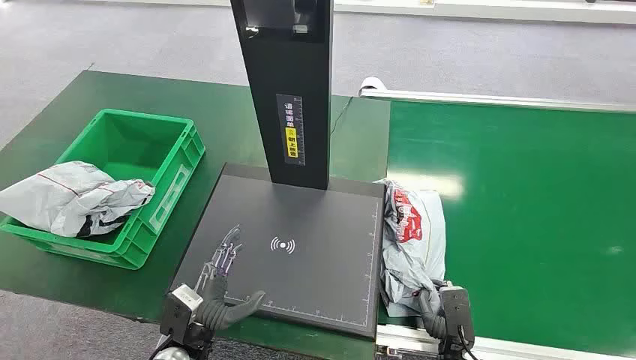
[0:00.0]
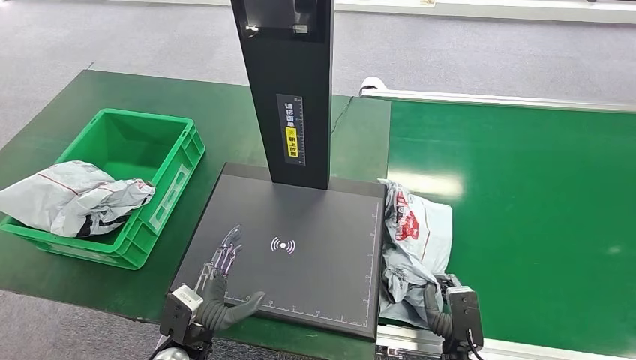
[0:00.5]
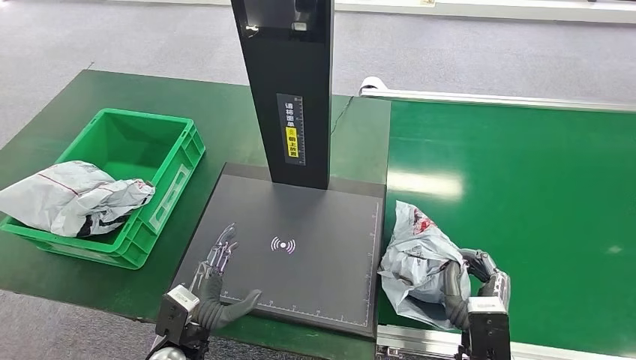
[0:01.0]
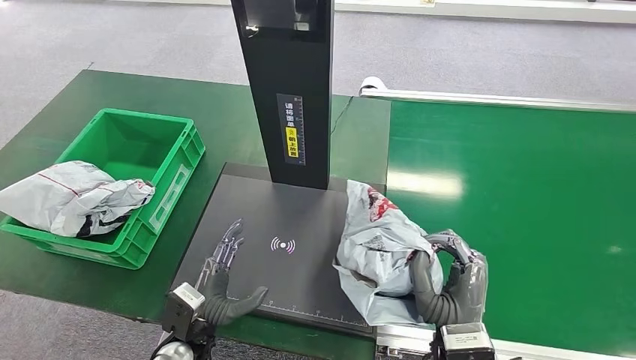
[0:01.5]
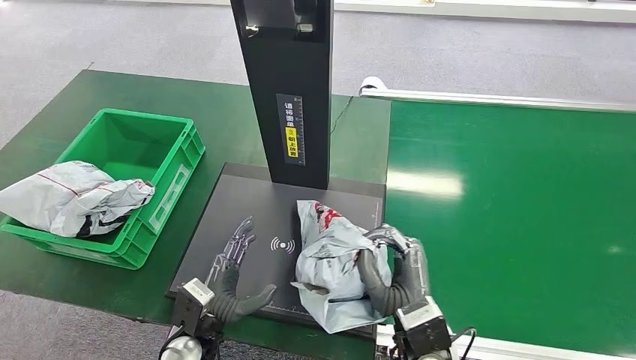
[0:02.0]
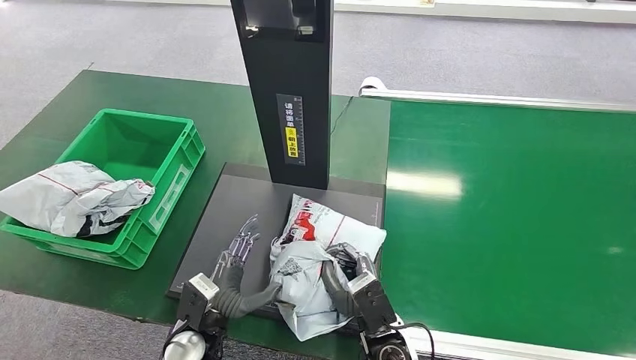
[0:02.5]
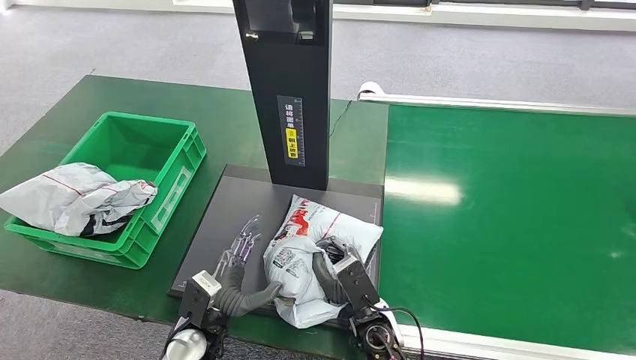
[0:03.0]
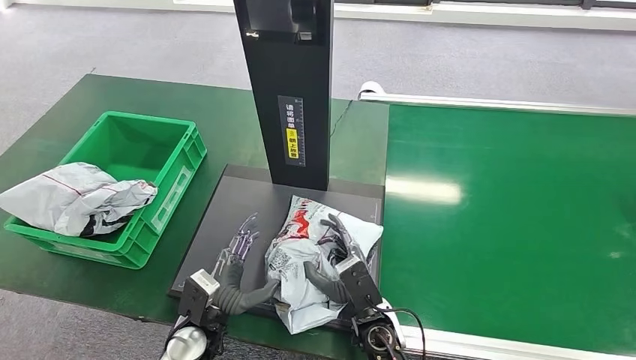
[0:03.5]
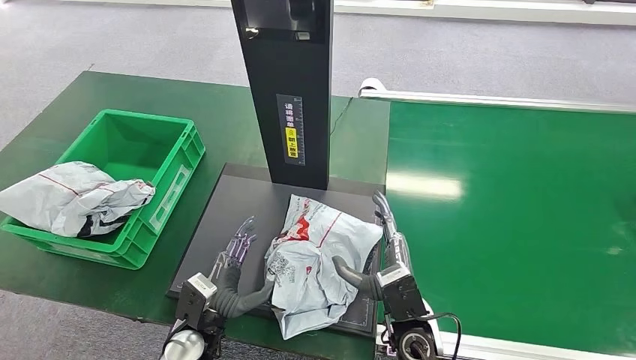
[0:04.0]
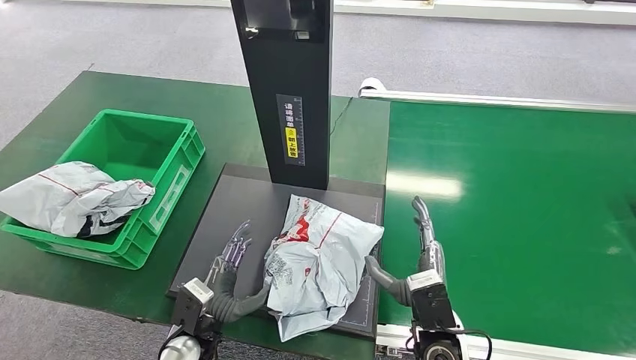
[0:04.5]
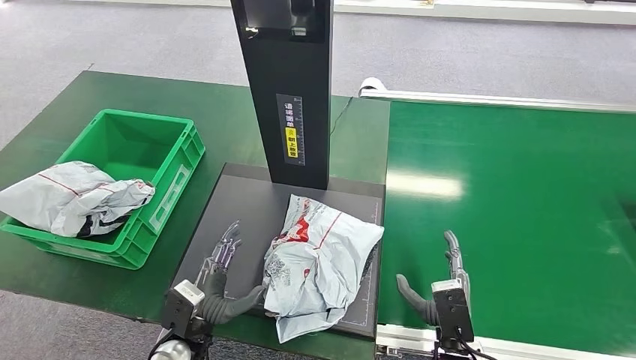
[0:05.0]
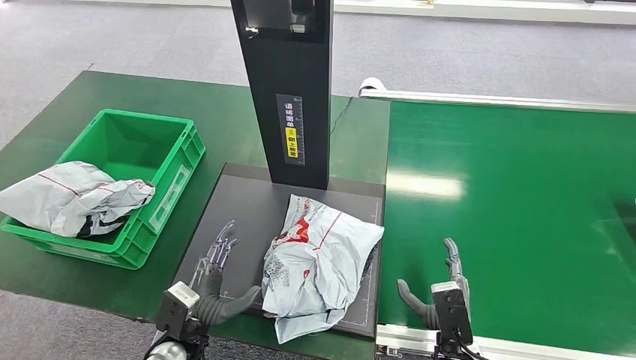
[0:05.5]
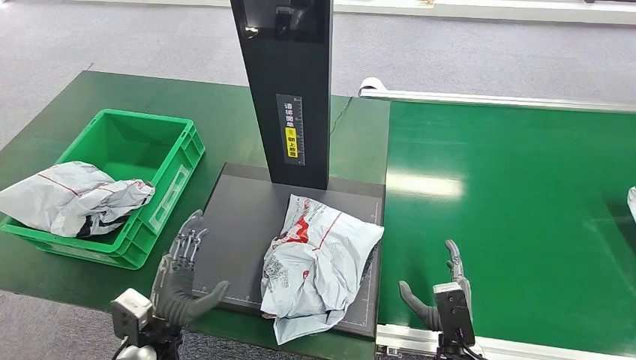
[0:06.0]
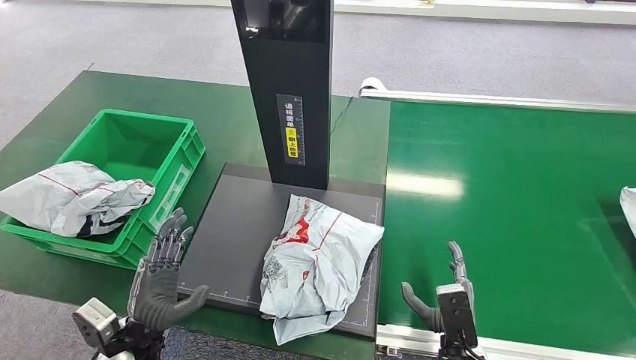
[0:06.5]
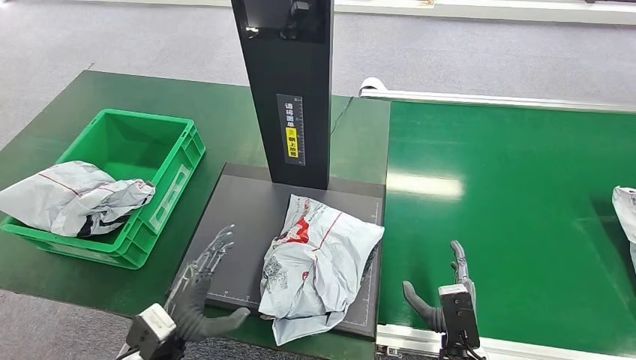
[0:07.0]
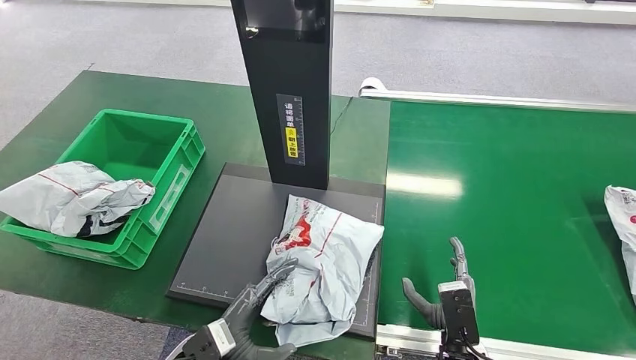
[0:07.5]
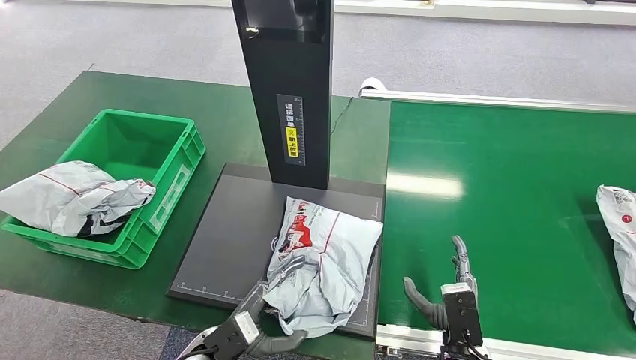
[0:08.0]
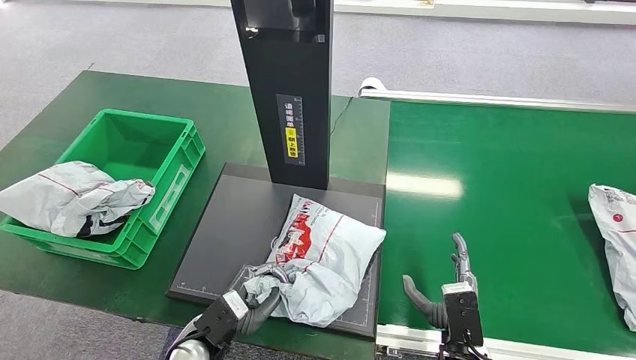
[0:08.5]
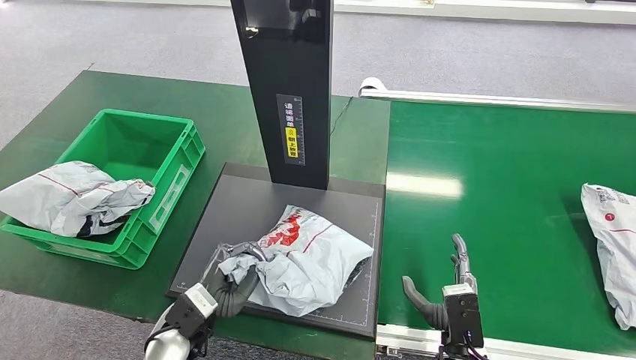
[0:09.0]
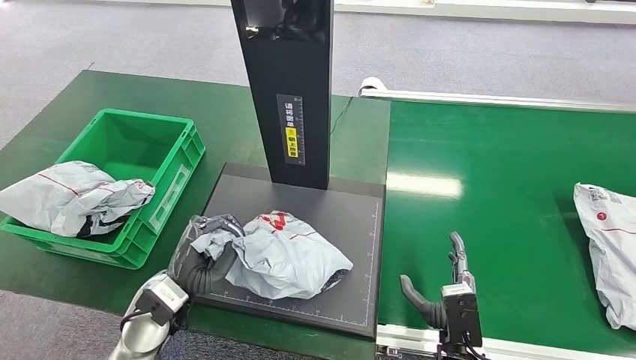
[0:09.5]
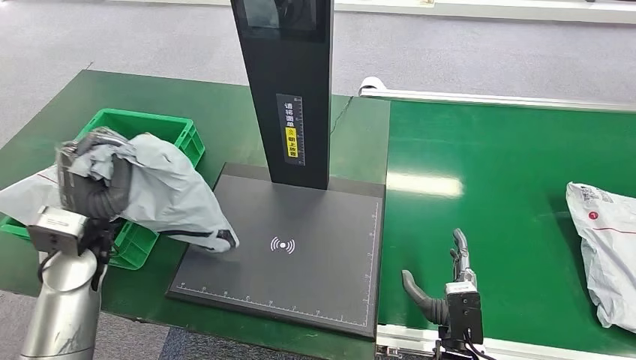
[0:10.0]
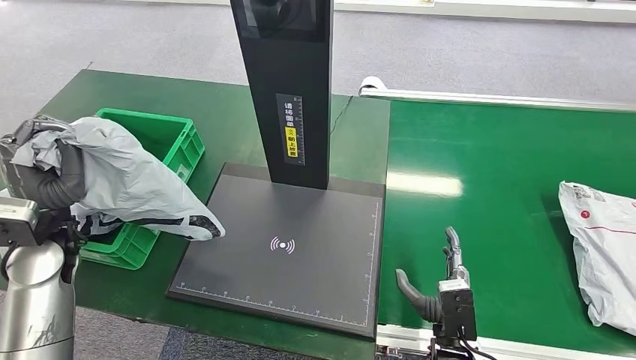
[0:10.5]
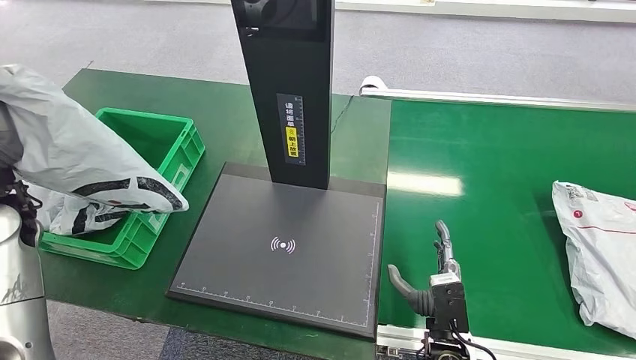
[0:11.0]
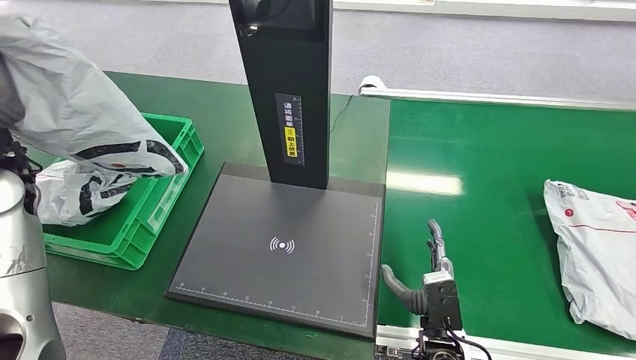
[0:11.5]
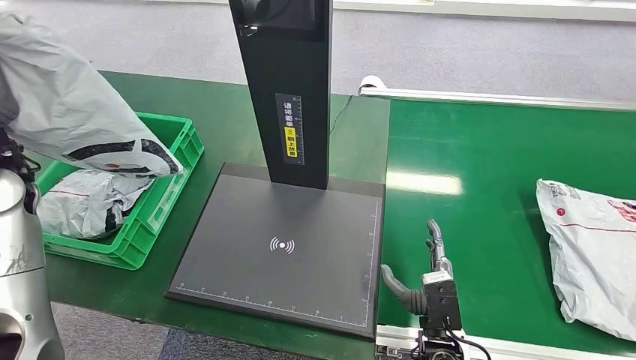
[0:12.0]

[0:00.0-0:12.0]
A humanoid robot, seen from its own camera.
Step, 0:00.0 to 0:01.5: Pick up the package from the conveyor belt.
Step, 0:02.0 to 0:04.5: Place the package onto the inbound machine.
Step, 0:05.0 to 0:09.5: Pick up the package from the inbound machine.
0:04.0 to 0:06.0: The left hand is displaced to the left by approximately 5 cm, while the right hand heads to the right and downward, covering some 10 cm.
0:06.0 to 0:08.0: The left hand heads to the right, covering some 10 cm.

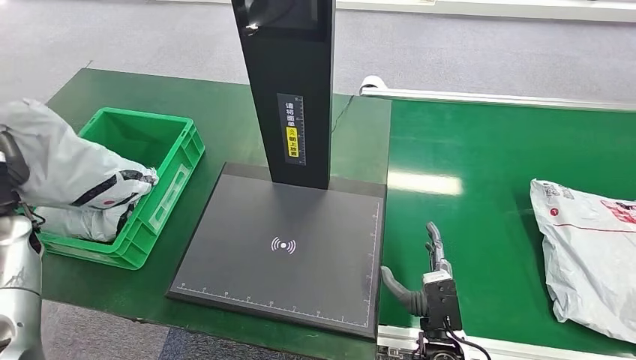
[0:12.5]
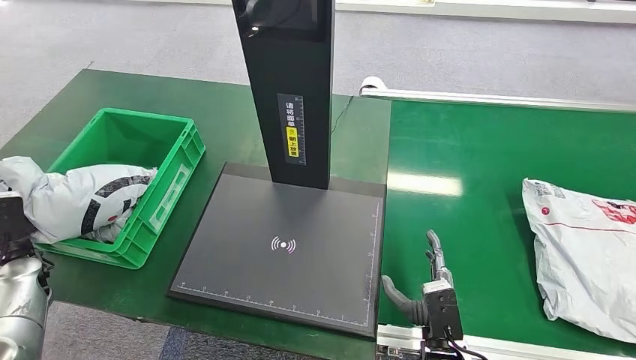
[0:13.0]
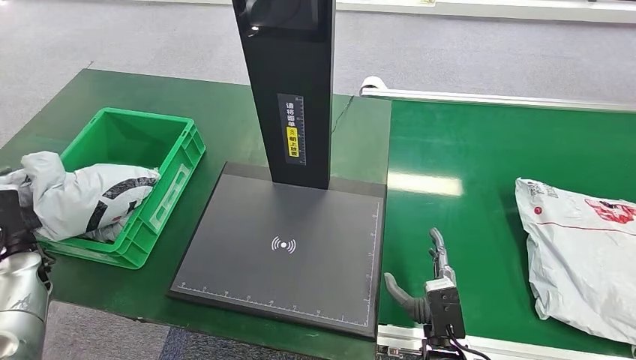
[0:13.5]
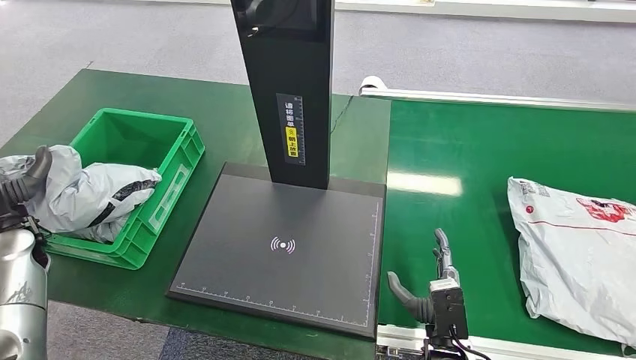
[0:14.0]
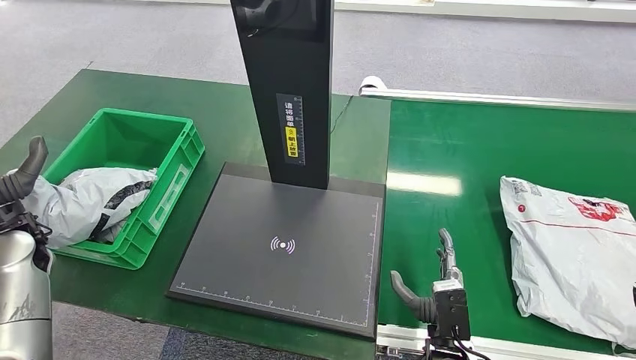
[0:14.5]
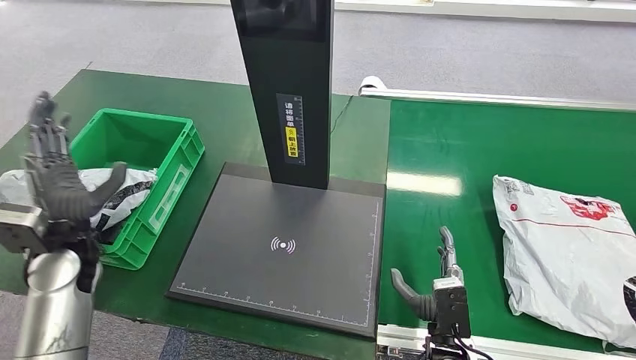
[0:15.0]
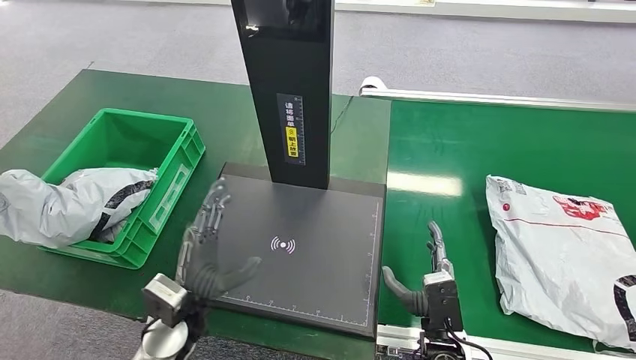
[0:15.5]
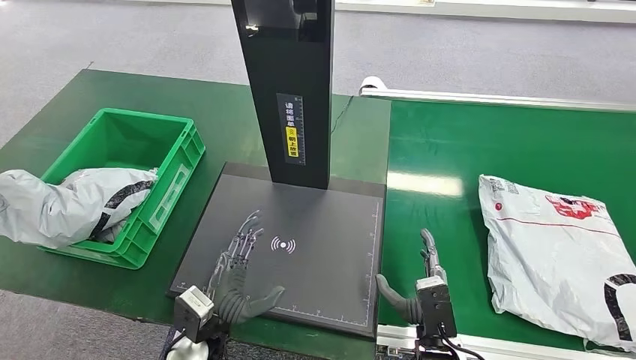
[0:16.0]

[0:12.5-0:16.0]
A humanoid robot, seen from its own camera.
Step, 0:12.5 to 0:16.0: Place the package into the parcel locker.
0:12.5 to 0:14.5: The left hand travels downward and back again, some 10 cm each way.
0:14.5 to 0:16.0: The left hand shifts about 35 cm to the right and downward.
